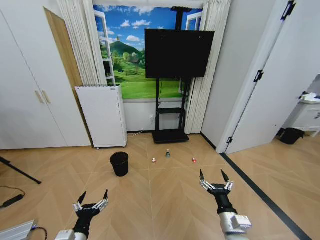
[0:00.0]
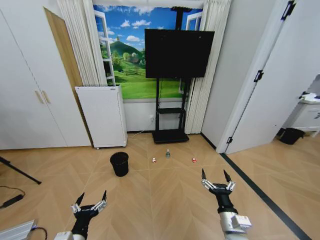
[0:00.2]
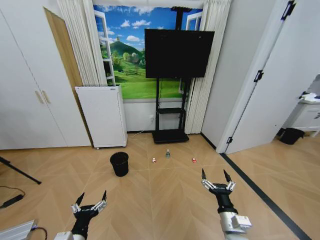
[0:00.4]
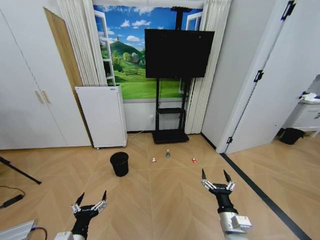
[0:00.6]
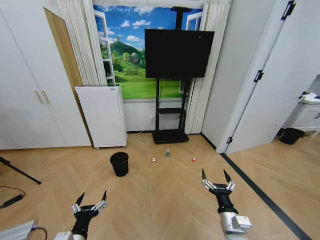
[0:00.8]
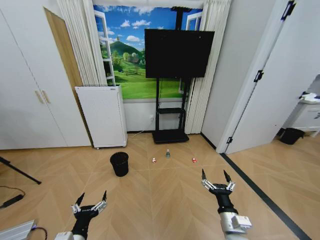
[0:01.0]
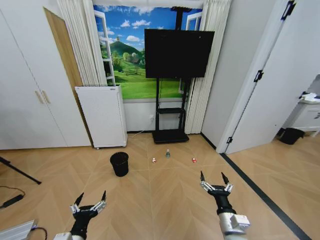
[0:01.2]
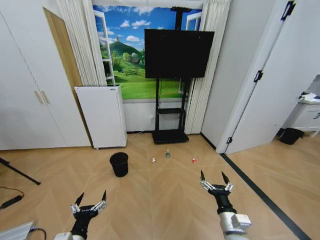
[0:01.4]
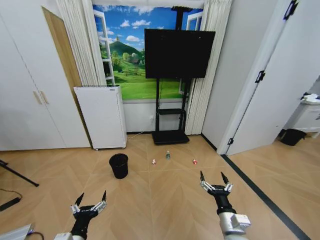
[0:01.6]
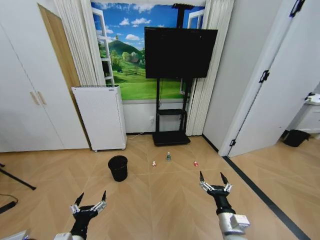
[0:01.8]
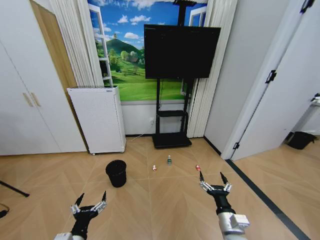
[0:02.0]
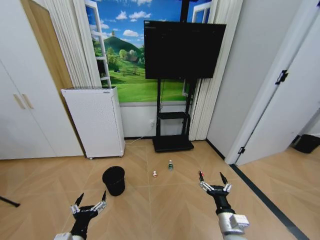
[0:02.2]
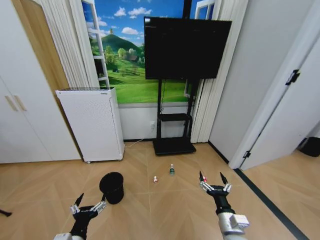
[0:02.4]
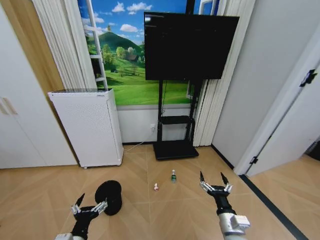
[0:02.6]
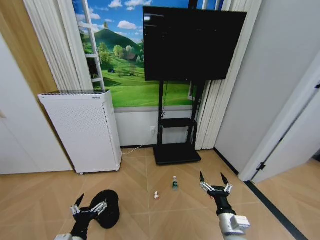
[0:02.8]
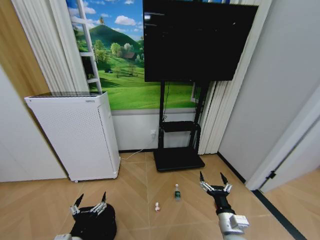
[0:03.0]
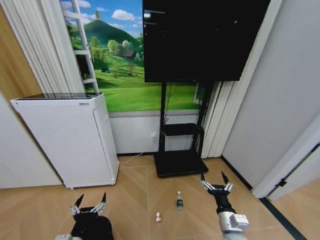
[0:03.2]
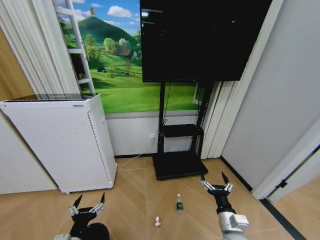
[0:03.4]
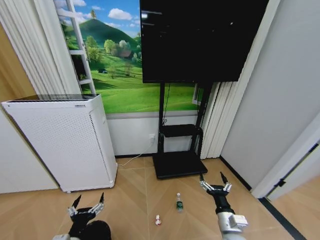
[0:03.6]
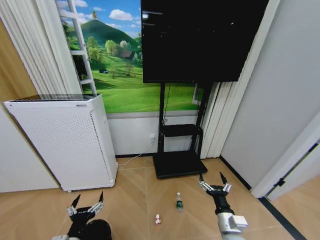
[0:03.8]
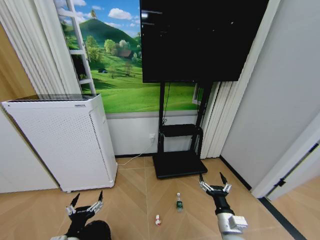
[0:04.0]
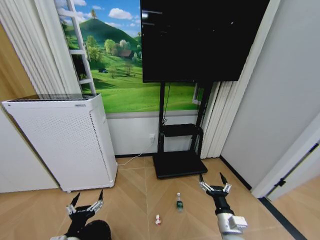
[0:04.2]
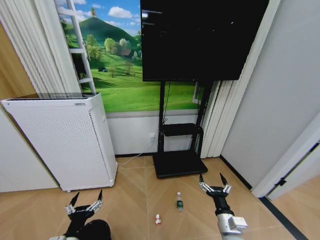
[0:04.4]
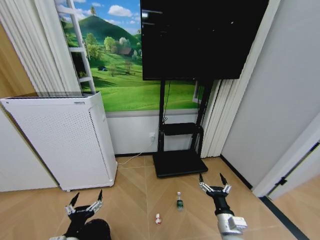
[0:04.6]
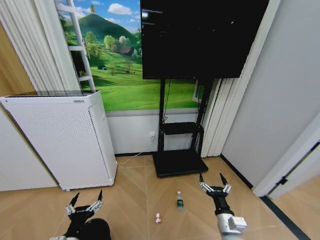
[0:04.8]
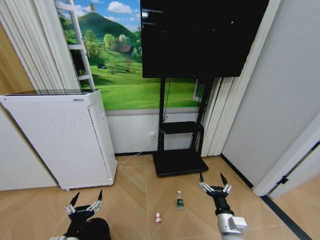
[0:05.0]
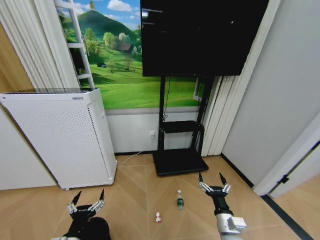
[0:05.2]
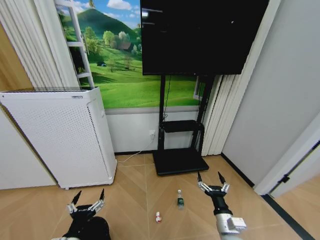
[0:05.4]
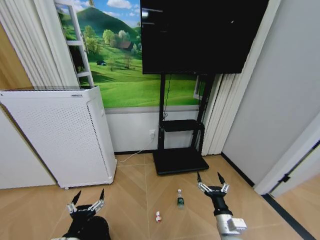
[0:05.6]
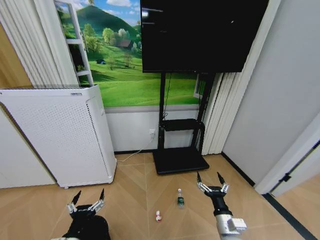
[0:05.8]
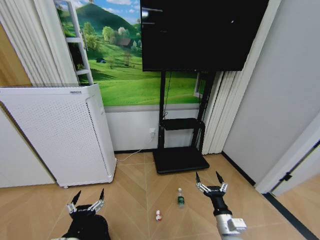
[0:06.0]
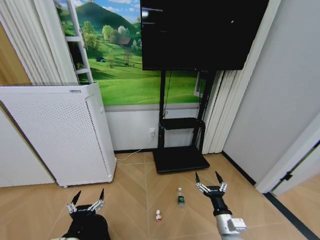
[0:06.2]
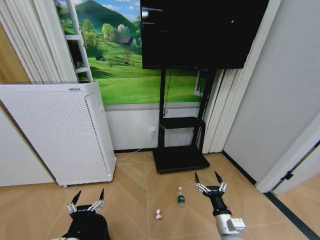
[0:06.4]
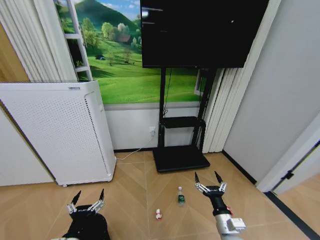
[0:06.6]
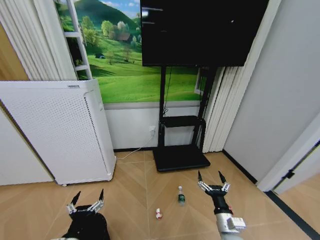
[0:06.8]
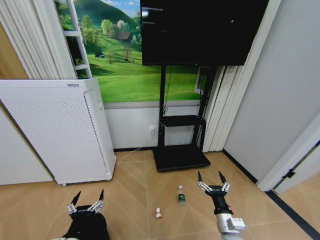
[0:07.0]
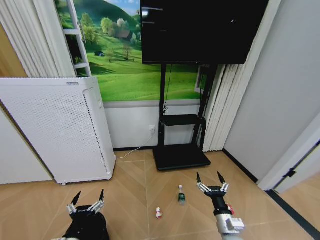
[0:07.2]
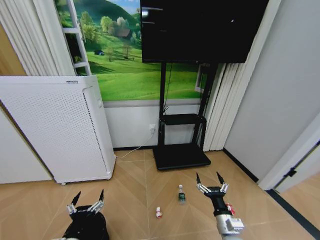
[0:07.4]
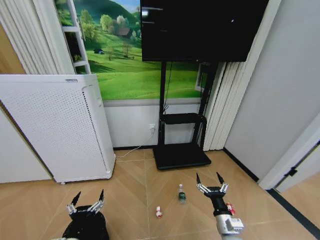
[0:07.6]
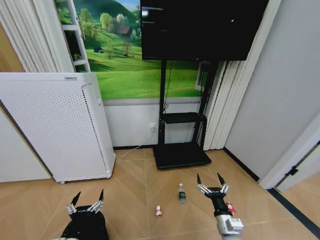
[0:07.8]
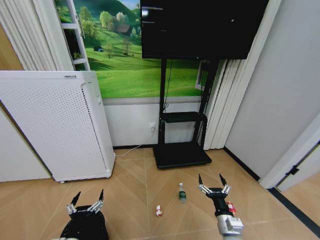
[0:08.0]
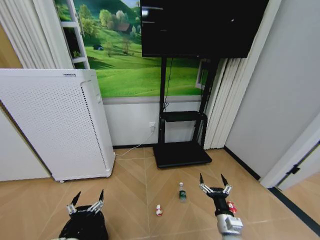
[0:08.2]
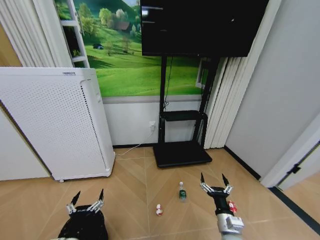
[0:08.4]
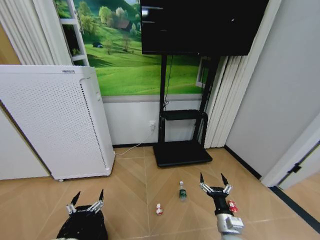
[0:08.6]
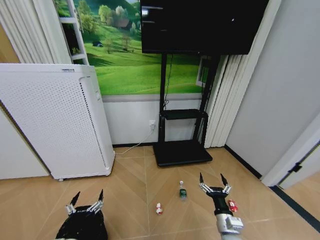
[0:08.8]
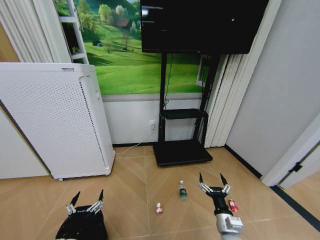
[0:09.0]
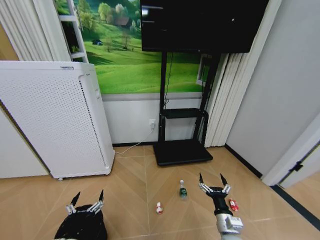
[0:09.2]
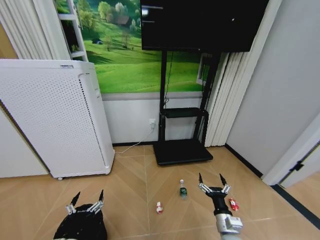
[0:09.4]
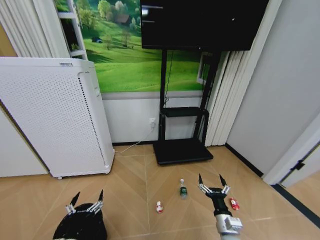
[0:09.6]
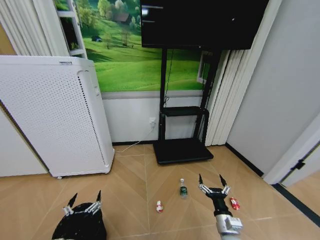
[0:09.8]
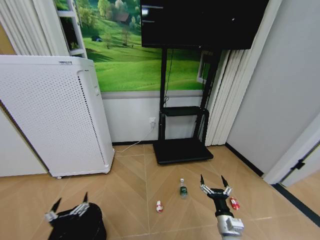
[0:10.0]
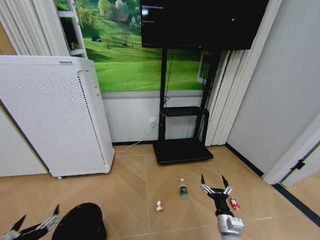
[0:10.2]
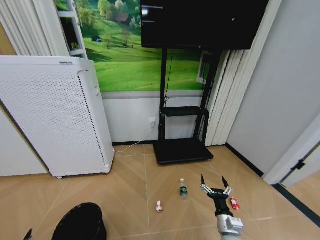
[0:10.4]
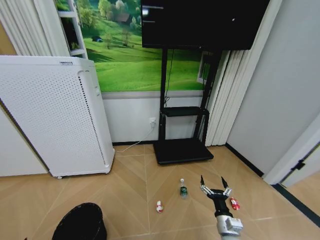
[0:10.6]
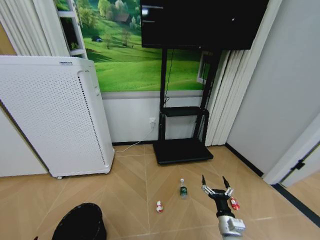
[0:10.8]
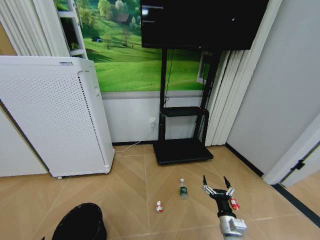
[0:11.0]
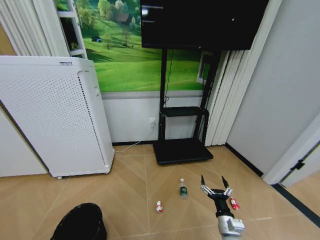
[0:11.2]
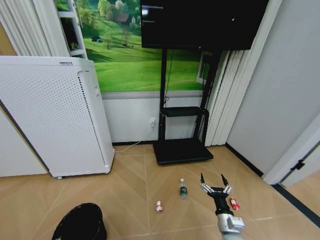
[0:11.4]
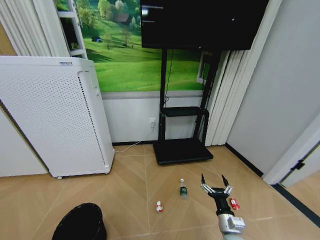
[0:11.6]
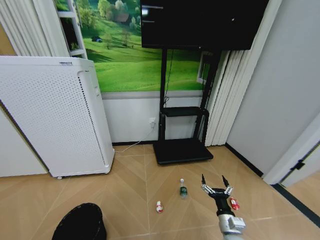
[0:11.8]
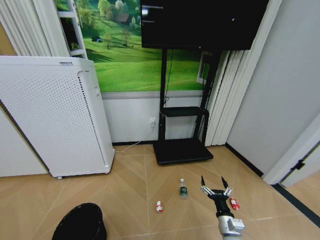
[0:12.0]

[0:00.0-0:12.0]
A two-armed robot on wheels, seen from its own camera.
Task of the whole recording: Pick up the trash bin and place the garbage on the floor into it.
0:04.4 to 0:06.0: There are only small adjustments of the grippers.
0:06.0 to 0:07.6: Both grippers stay about where they are.
0:07.6 to 0:09.0: The grippers make only small movements.
0:09.0 to 0:10.4: The left gripper heads to the left and backward, covering roughly 15 cm.

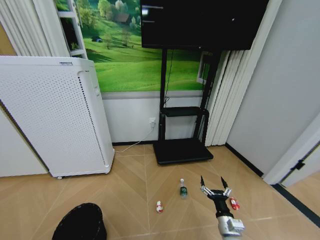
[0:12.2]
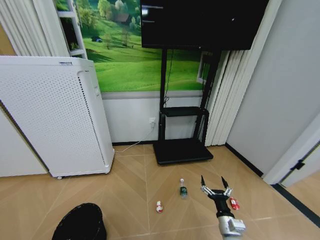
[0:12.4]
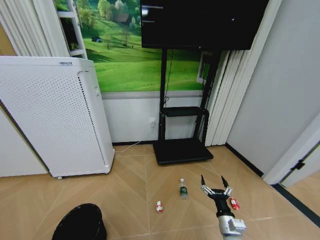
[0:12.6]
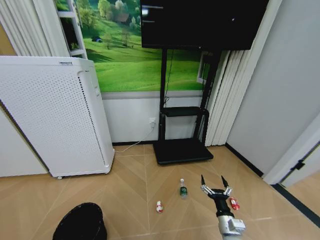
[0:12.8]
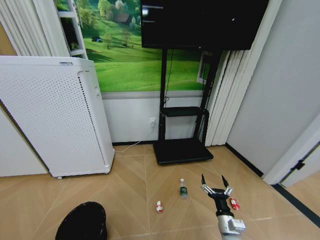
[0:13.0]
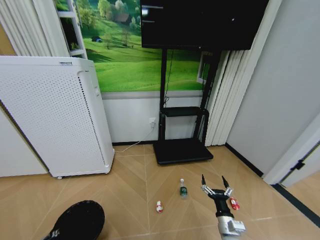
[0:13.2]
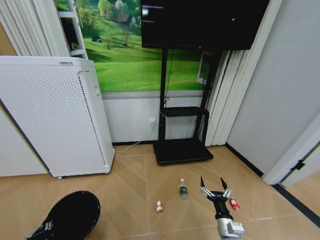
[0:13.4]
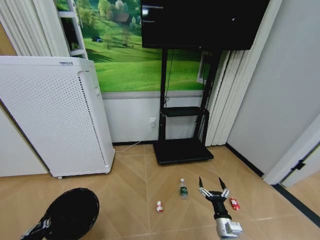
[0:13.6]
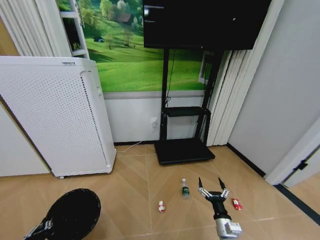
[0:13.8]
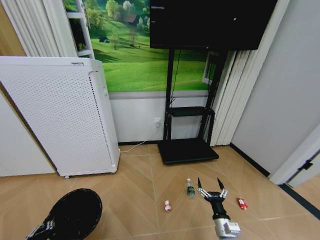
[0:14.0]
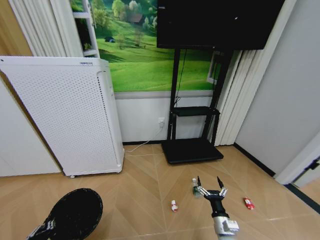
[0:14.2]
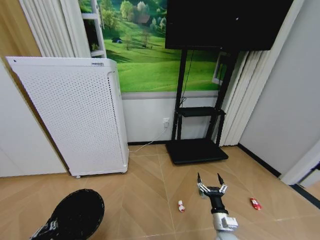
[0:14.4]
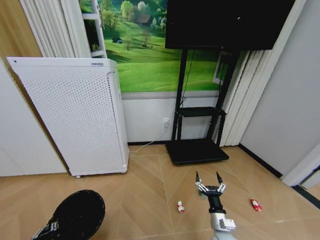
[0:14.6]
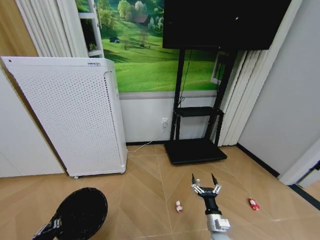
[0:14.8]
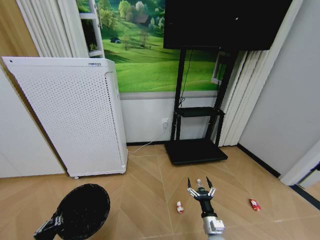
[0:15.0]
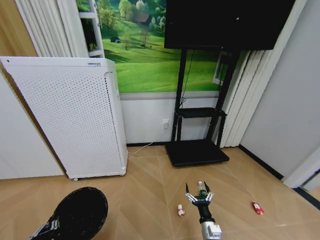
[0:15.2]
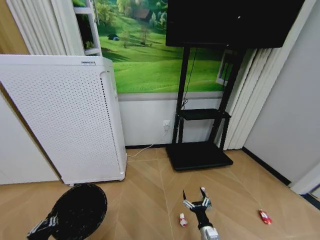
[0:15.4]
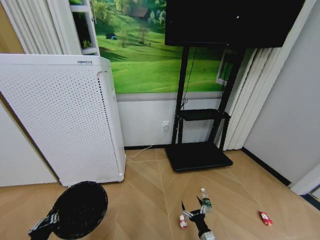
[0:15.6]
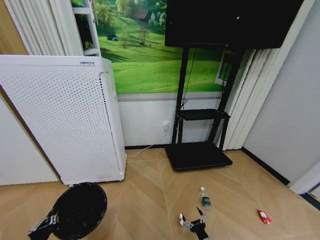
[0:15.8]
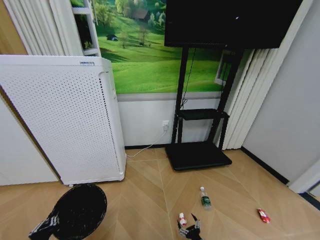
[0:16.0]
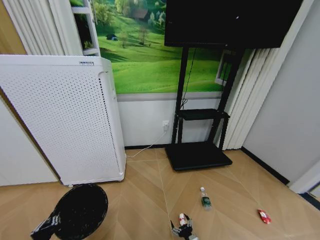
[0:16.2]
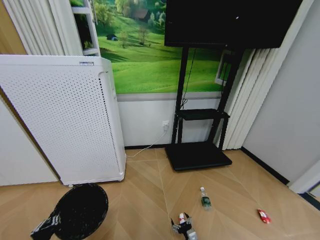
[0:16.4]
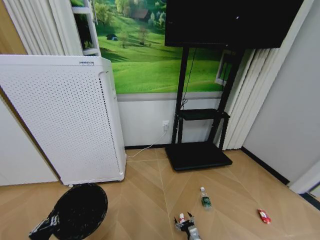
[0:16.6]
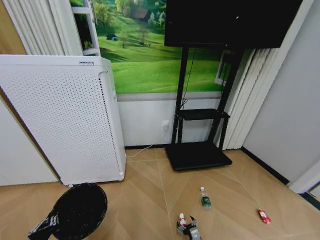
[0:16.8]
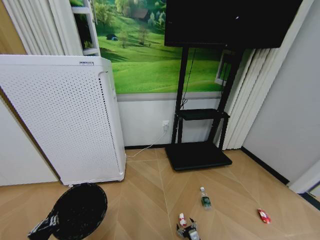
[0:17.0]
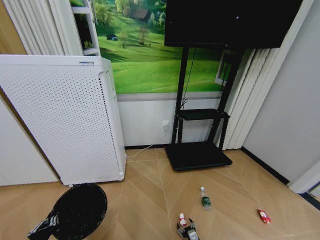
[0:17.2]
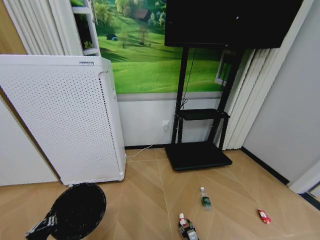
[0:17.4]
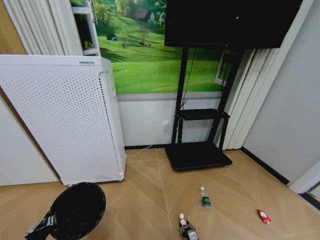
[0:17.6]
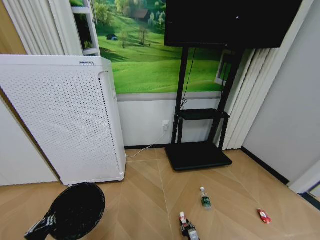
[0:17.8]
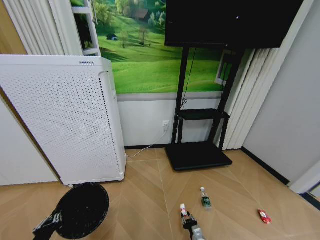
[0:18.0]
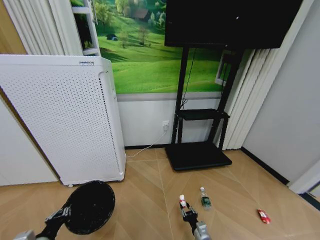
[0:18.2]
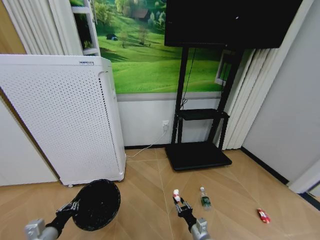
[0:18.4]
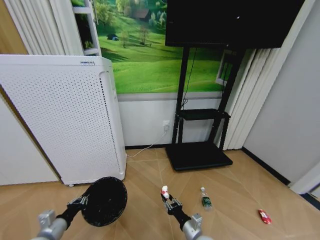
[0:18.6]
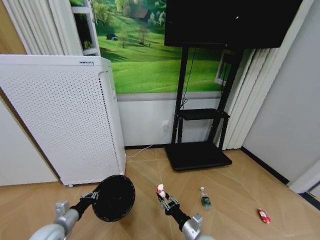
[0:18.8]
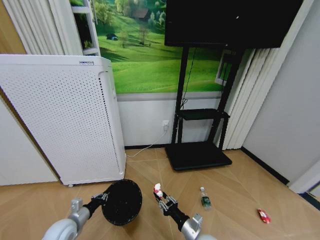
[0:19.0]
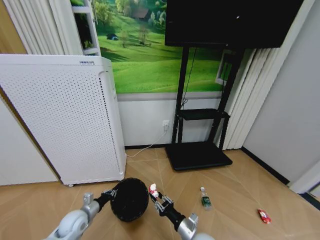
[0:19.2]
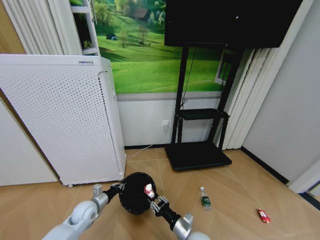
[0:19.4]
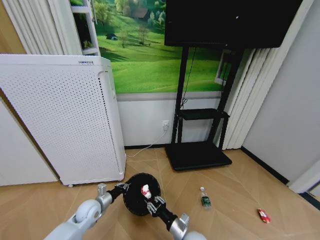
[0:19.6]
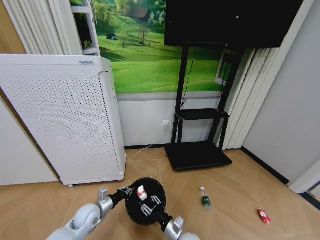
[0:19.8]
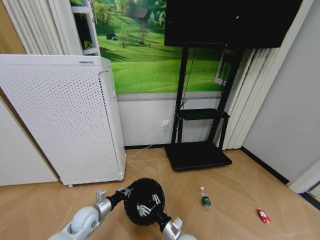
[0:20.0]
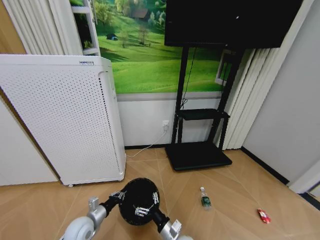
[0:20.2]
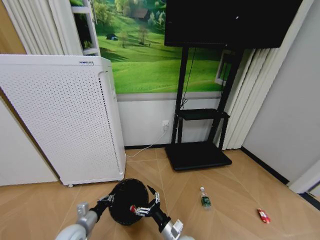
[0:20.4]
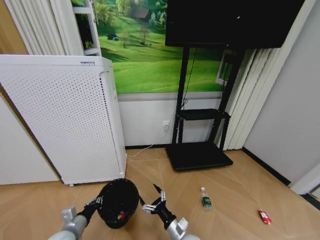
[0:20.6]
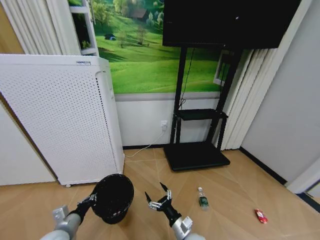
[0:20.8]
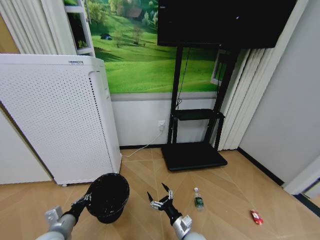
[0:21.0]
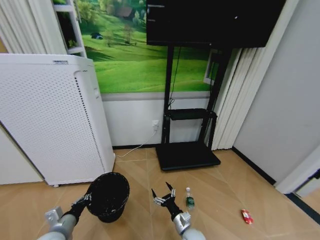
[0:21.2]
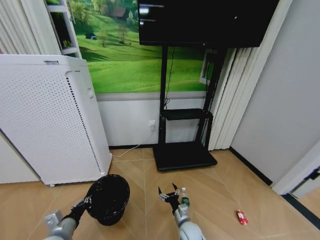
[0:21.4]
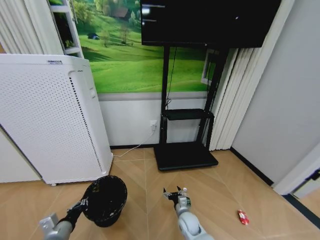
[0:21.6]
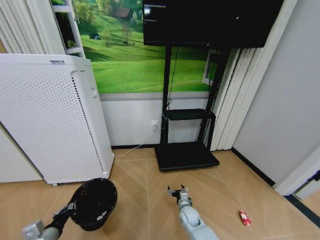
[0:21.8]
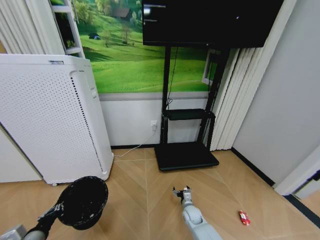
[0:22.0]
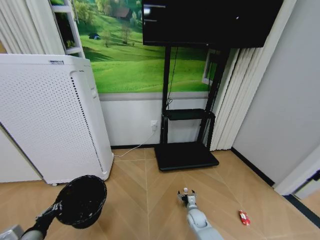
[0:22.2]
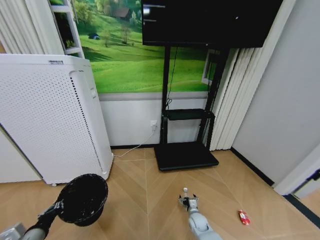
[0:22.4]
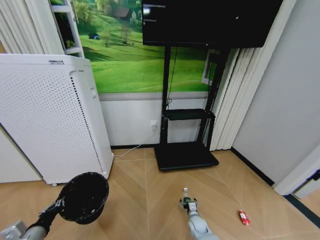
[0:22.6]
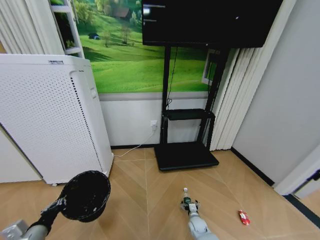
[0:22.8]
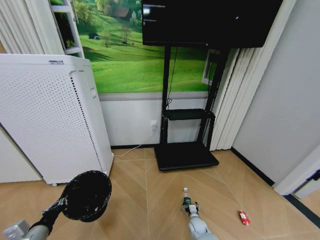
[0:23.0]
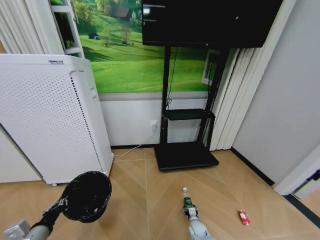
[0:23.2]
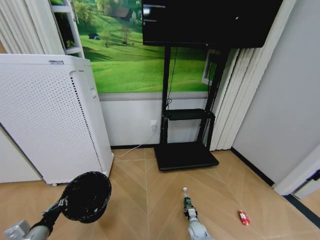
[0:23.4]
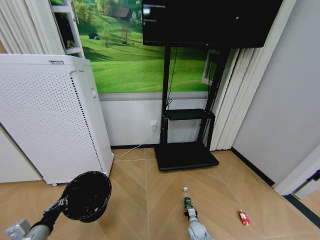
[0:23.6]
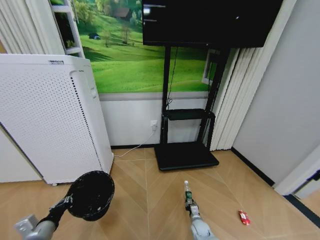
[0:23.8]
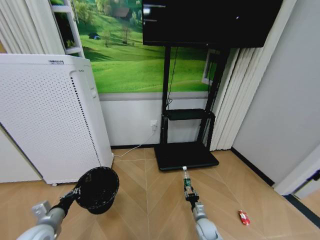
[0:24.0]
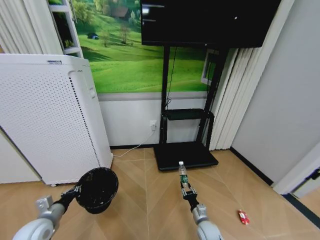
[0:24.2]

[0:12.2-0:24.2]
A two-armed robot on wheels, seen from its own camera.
Task of the whole recording: Pick up the trash bin and place the garbage on the floor into it.
0:12.2 to 0:13.8: The left gripper closes.
0:13.8 to 0:15.2: The right gripper shifts by about 5 cm.
0:15.2 to 0:16.6: The right gripper heads downward, covering some 15 cm.
0:16.6 to 0:18.2: The right gripper is displaced upward by roughly 10 cm, and closes up.
0:18.2 to 0:19.8: The right gripper heads to the left and upward, covering about 15 cm. The left gripper heads forward and to the right, covering roughly 20 cm.
0:19.8 to 0:21.2: The left gripper is displaced backward, upward and to the left by about 15 cm. Meanwhile the right gripper opens.
0:21.2 to 0:22.6: The right gripper travels downward, forward and to the right by some 20 cm, while the left gripper goes approximately 5 cm to the left.
0:22.6 to 0:24.2: The left gripper travels forward by about 10 cm. The right gripper travels upward by some 5 cm, and closes.
